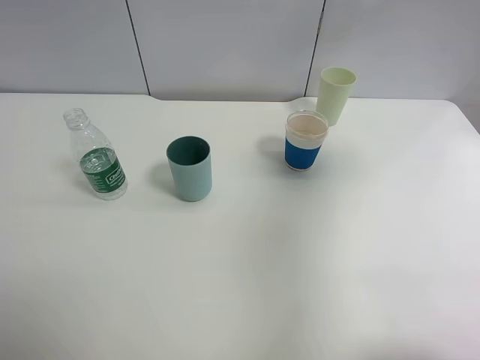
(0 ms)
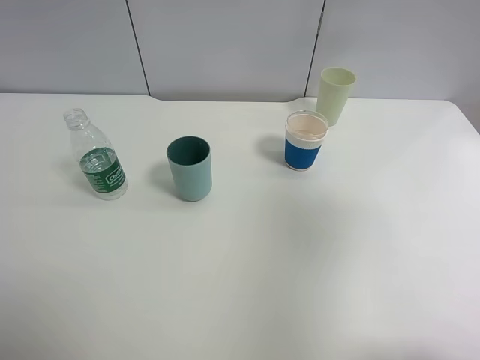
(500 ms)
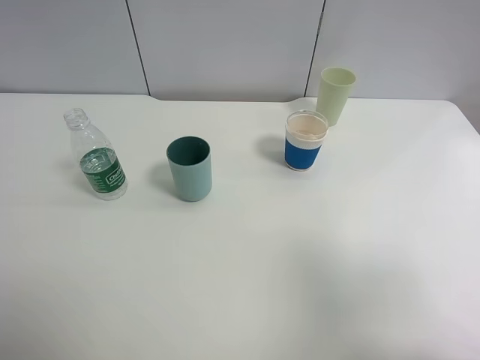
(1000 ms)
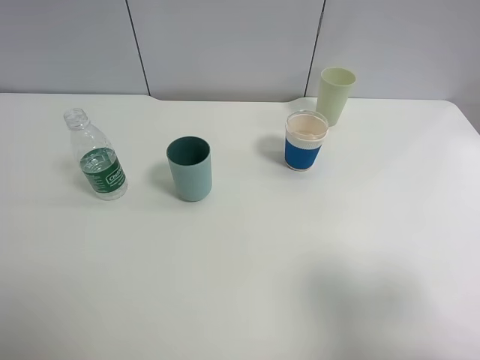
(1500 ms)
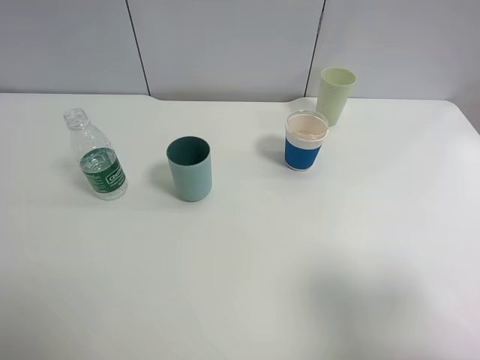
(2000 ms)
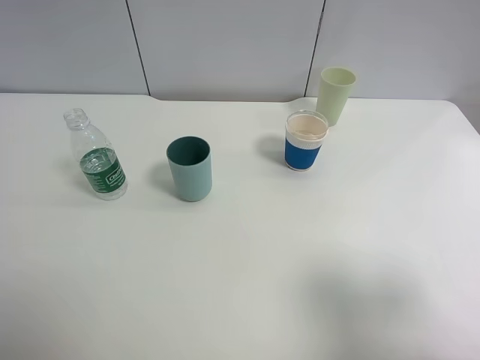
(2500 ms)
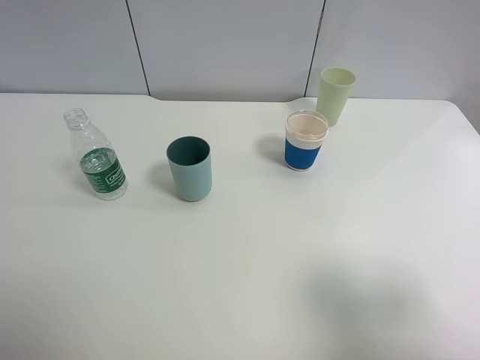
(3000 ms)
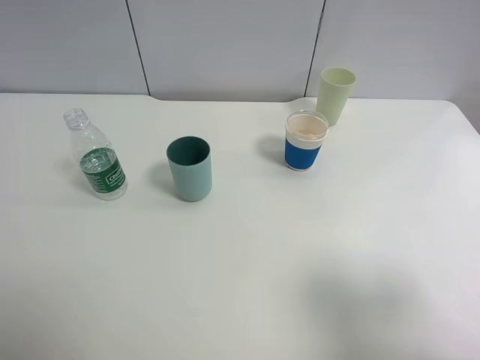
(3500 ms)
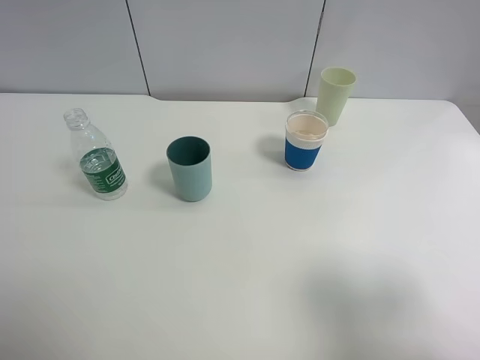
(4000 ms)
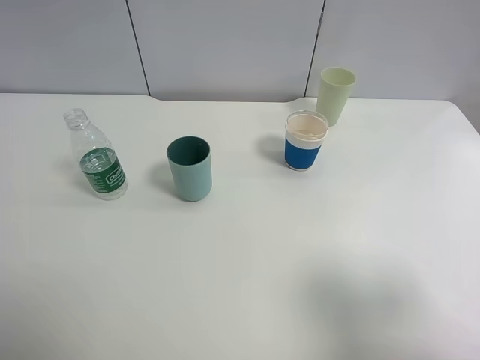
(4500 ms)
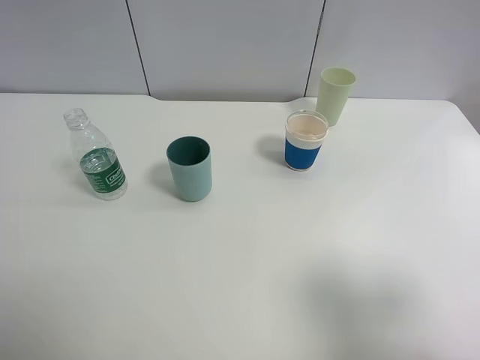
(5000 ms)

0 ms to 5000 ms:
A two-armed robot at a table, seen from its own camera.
Task of the whole recording: use a clamp to hold the bottle of the drink, pour the beverage into a random cup, then clamp the cup containing the drink and pour the drink into another random cup.
0 ms to 2500 ms: The right gripper moves backward and downward, approximately 20 cm.
2500 ms to 5000 ms: Both grippers stay put.
